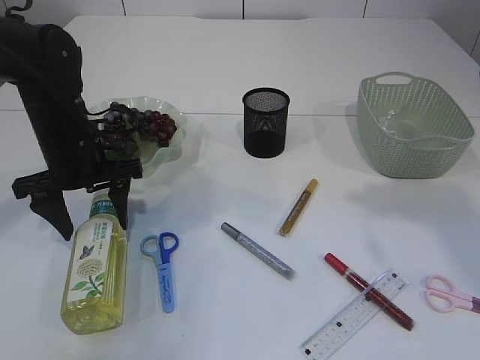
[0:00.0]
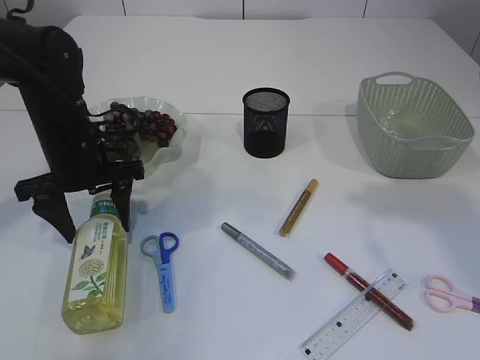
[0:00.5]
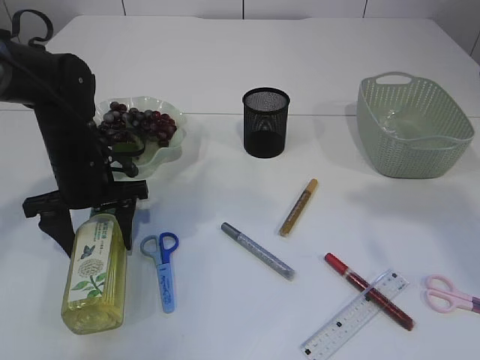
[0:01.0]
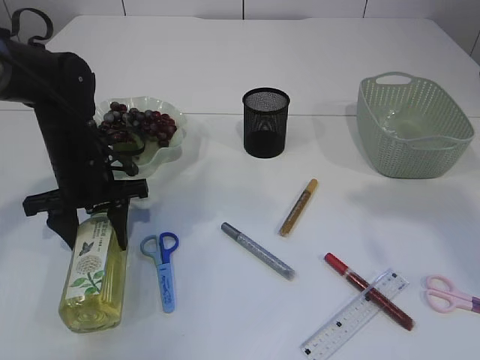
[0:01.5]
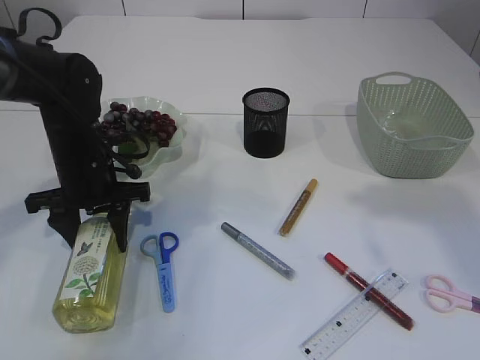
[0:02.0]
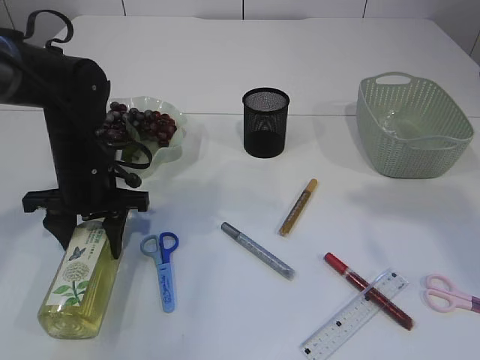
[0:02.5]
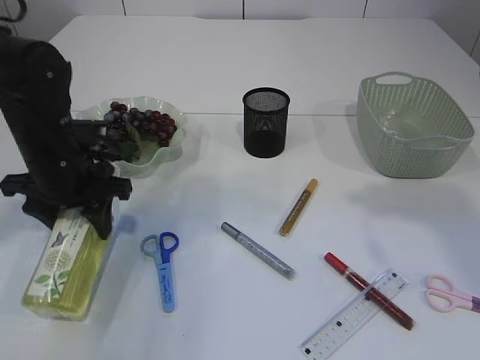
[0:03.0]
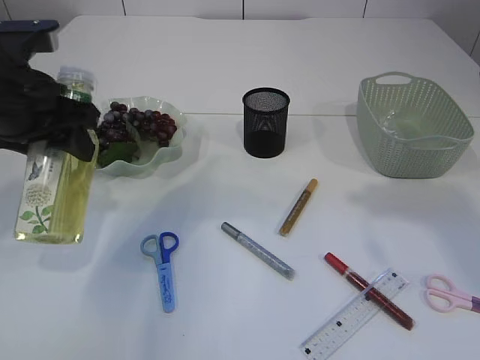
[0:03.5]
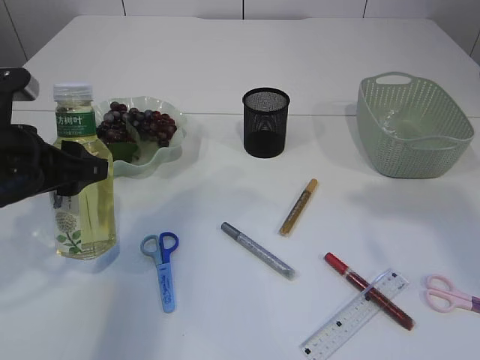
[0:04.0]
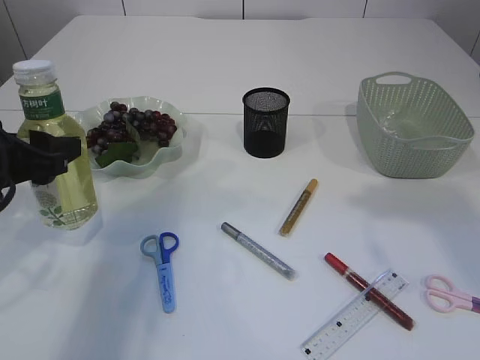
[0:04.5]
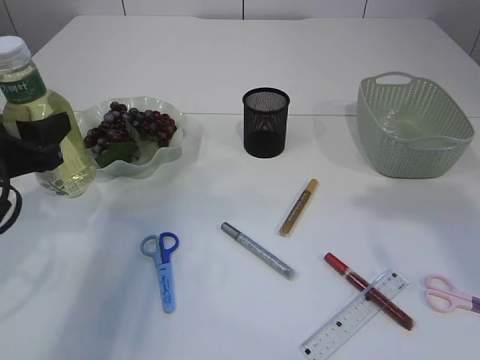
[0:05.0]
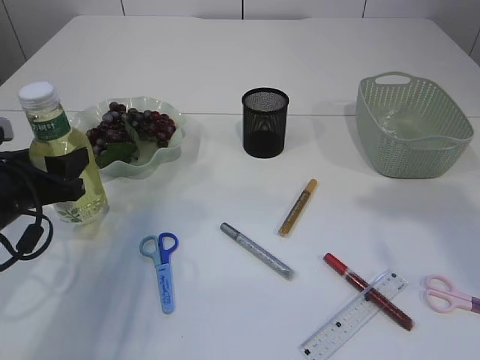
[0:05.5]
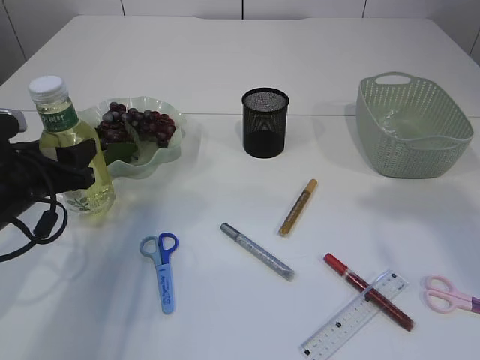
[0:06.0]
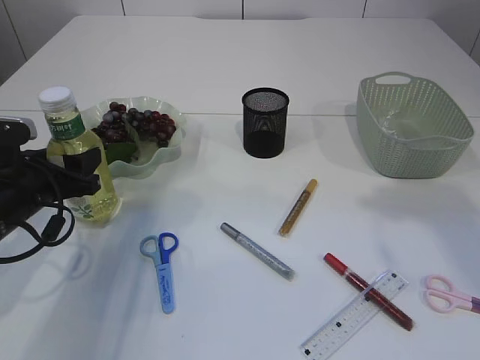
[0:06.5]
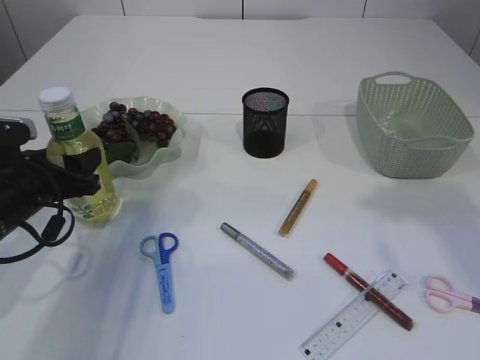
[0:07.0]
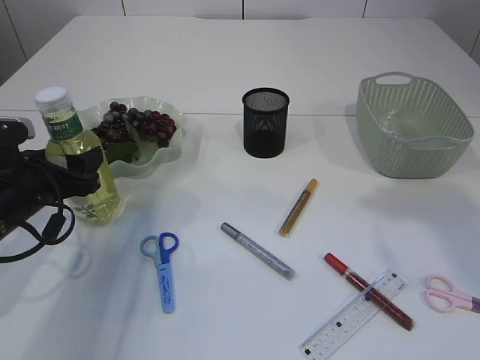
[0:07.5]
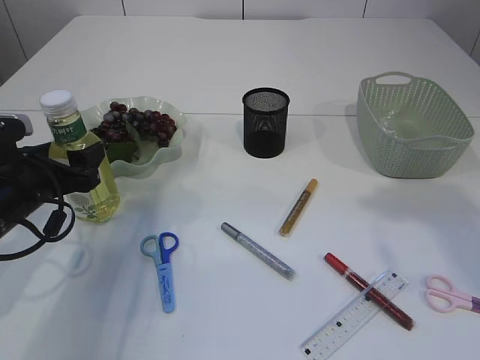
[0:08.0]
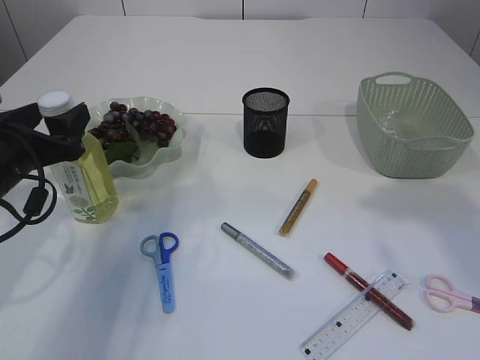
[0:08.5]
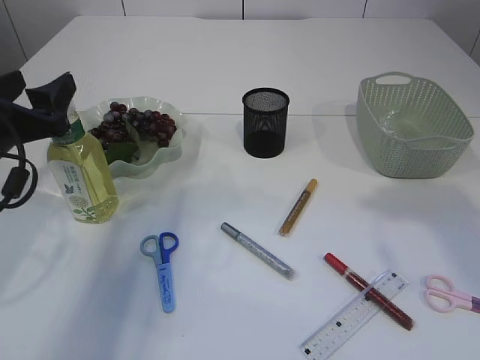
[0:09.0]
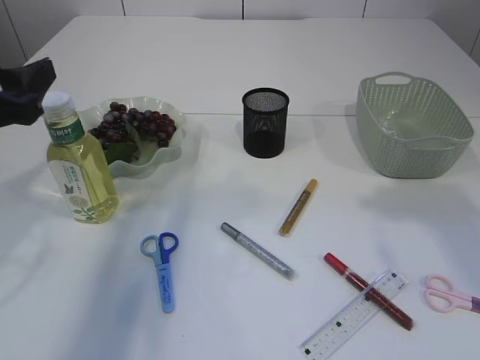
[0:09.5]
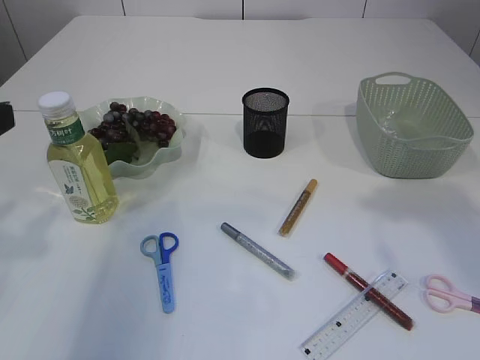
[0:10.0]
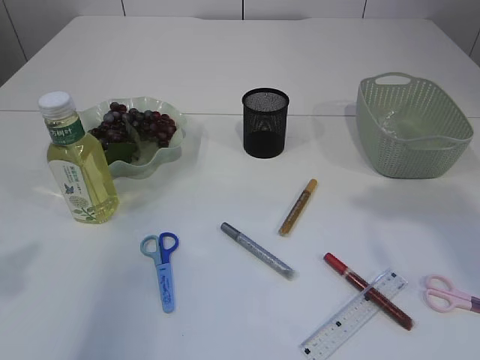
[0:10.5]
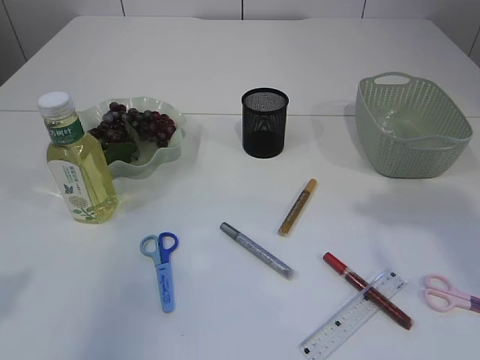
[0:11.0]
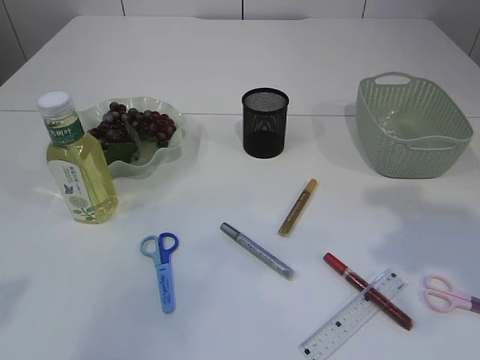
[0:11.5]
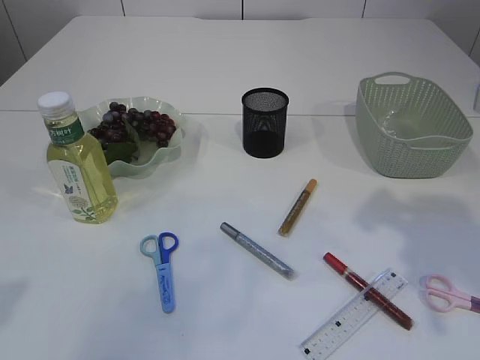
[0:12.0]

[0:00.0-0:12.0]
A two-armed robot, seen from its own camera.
Step, 0:00.0 to 0:03.0: Pick up the bottle with the left arm.
Step, 0:03.5 to 0:09.5: Place the bottle.
0:00.0 to 0:02.0: The grippers move only a little.
0:02.0 to 0:04.0: The left gripper travels backward and upward by roughly 15 cm.
0:04.0 to 0:06.0: The left gripper moves downward, about 10 cm.
0:06.0 to 0:08.0: The grippers move only a little.
0:08.0 to 0:10.0: The left gripper is displaced upward and backward by roughly 20 cm.
0:10.0 to 0:12.0: The right gripper moves downward, some 10 cm.

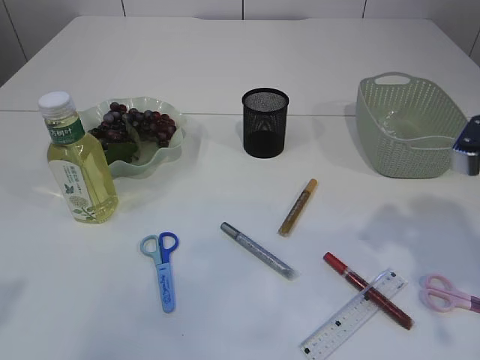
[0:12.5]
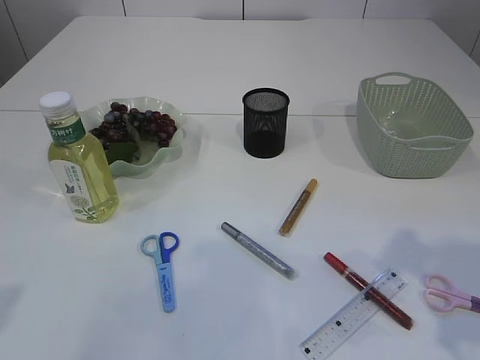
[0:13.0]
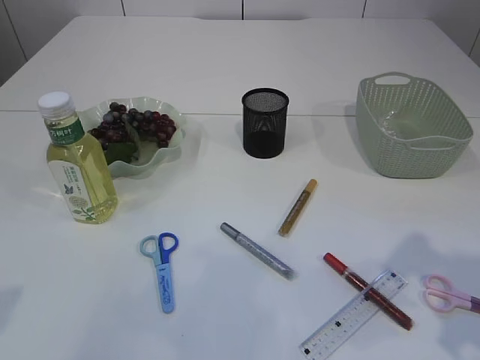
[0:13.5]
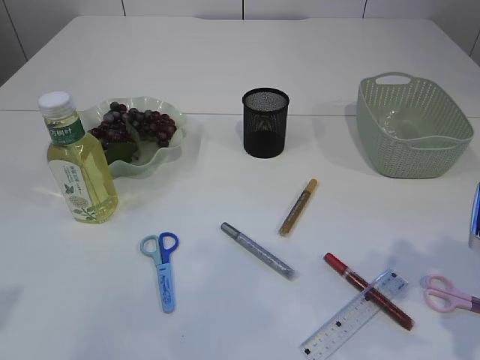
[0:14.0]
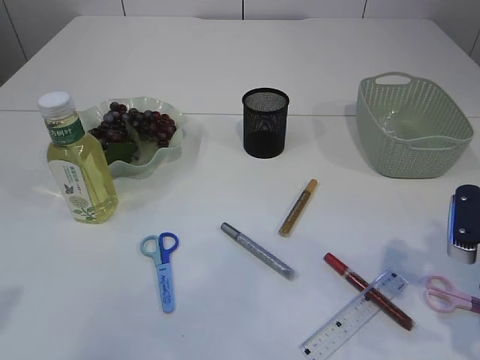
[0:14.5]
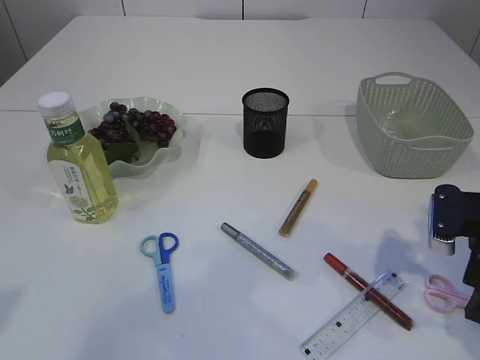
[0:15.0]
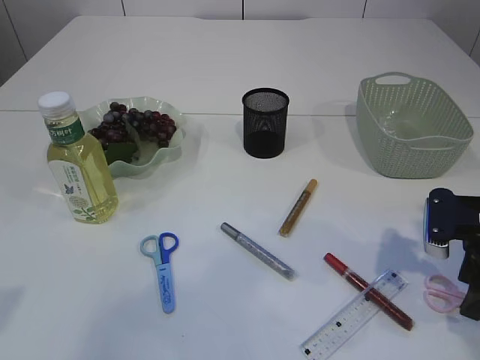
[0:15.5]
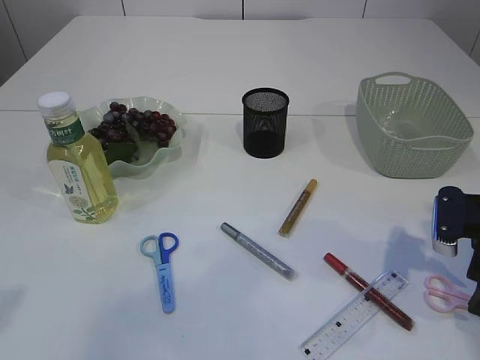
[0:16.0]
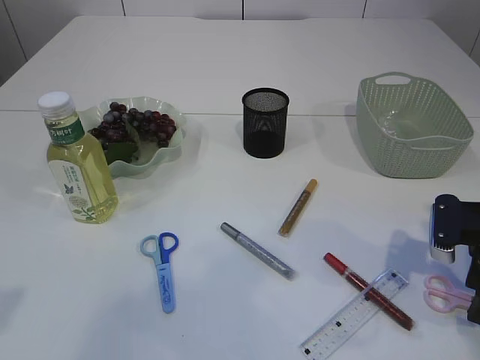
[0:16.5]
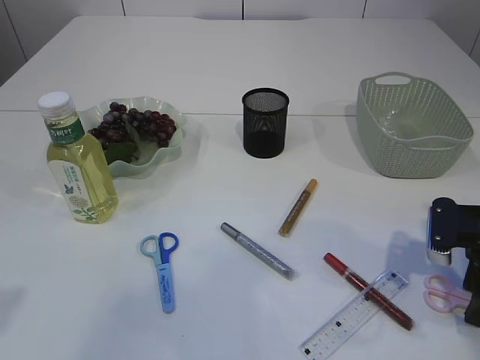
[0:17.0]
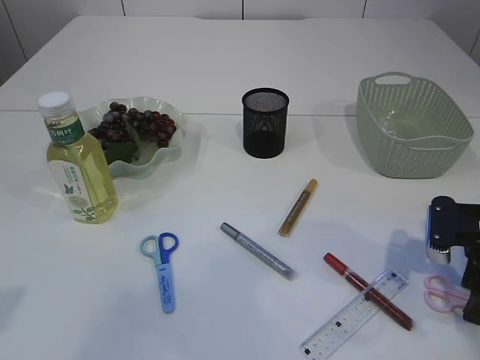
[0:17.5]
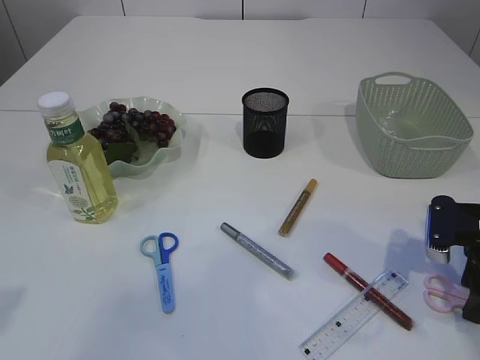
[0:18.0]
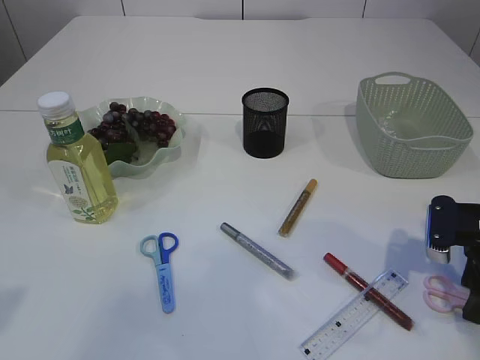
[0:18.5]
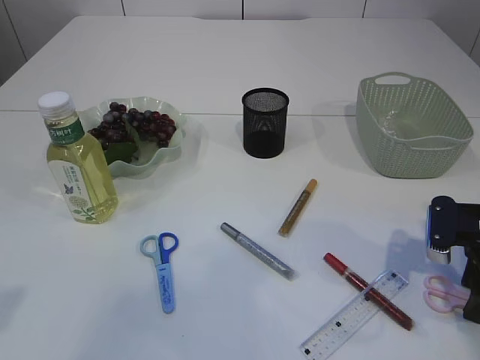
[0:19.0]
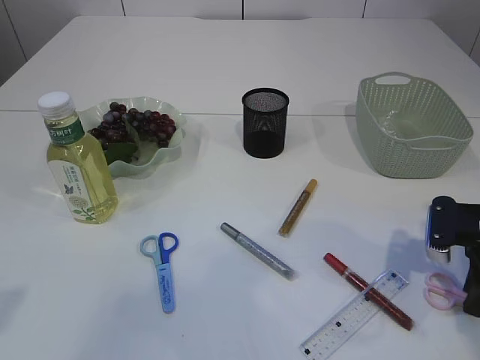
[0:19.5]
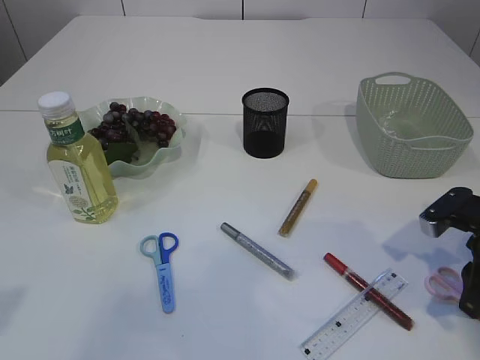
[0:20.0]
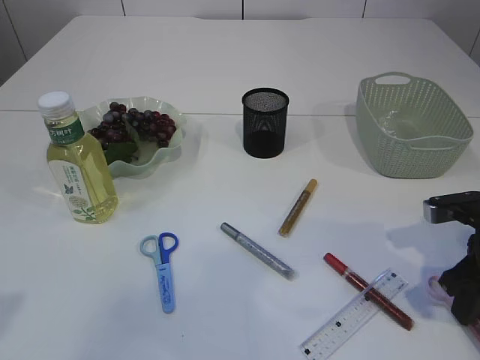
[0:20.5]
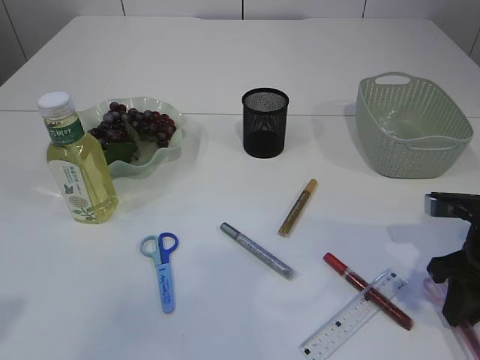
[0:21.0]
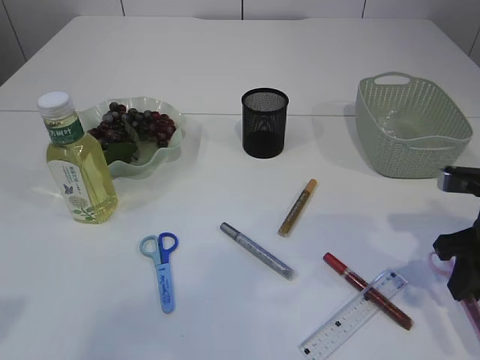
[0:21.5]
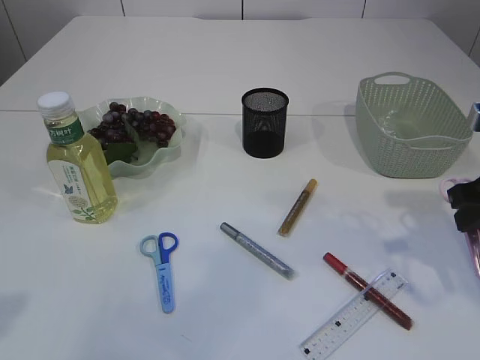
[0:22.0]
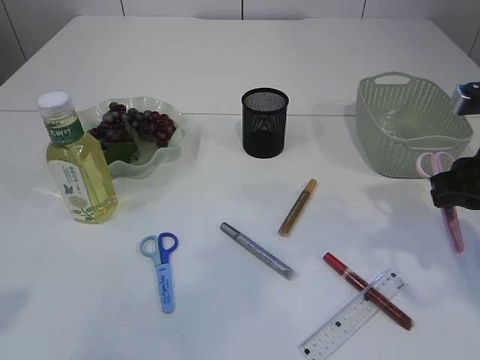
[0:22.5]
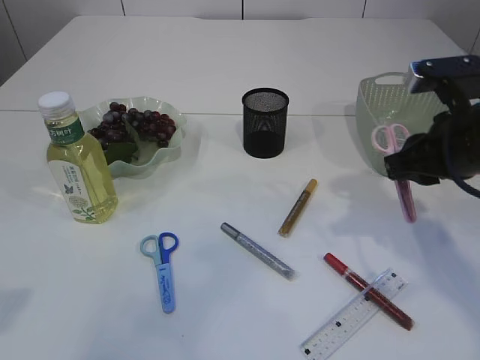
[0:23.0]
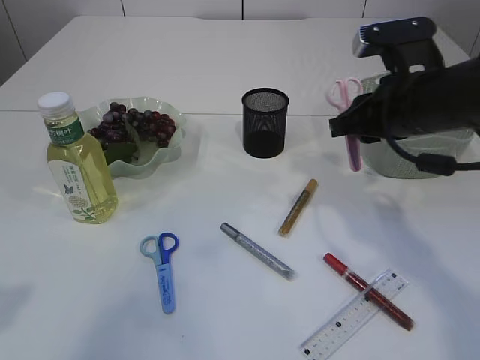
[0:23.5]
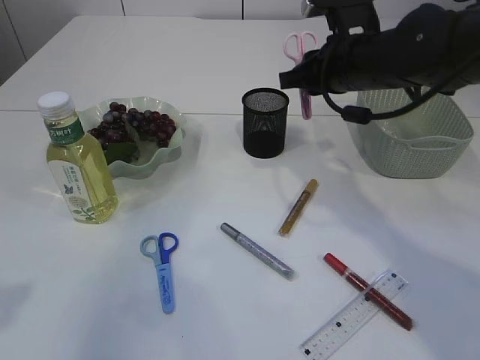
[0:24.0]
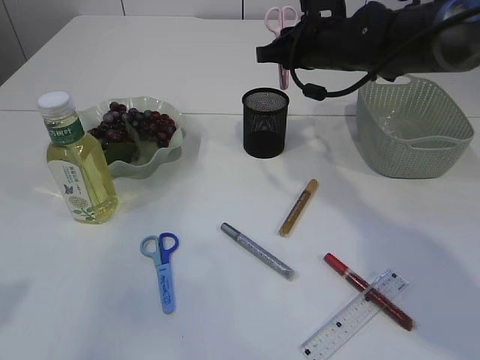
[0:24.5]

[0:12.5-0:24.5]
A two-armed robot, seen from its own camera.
Step, 0:12.5 to 0:21.5: pick up the pink scissors.
0:12.5 to 0:14.5: The right gripper is displaced downward by approximately 5 cm.
0:14.5 to 0:16.5: The right gripper ends up roughly 5 cm from where it was.
0:16.5 to 0:18.5: Neither gripper changes place.
0:18.5 to 0:20.5: The right gripper closes.
0:20.5 to 0:22.5: The right gripper heads upward, covering about 10 cm.
0:22.5 to 0:24.5: The right gripper shifts some 25 cm forward and to the left.

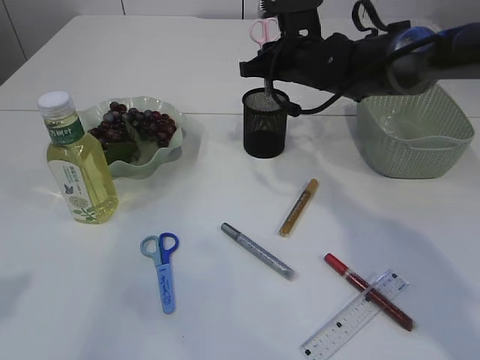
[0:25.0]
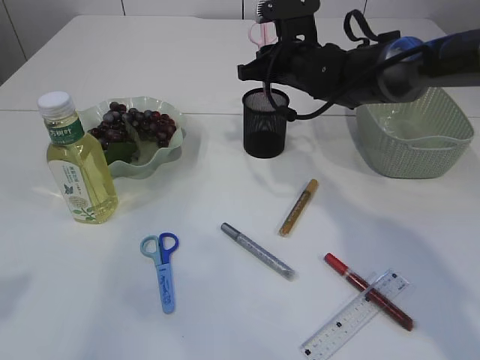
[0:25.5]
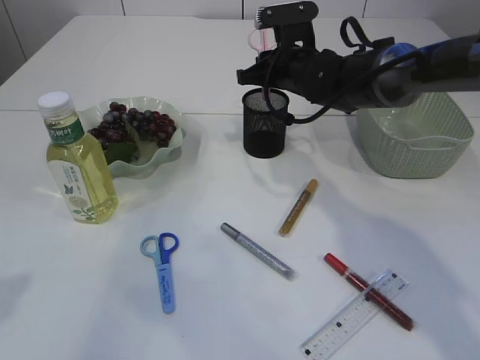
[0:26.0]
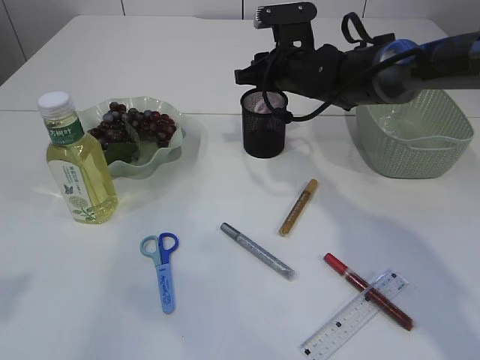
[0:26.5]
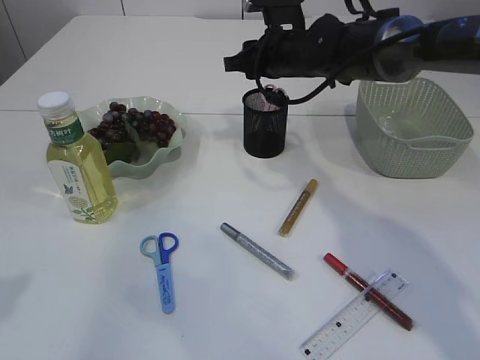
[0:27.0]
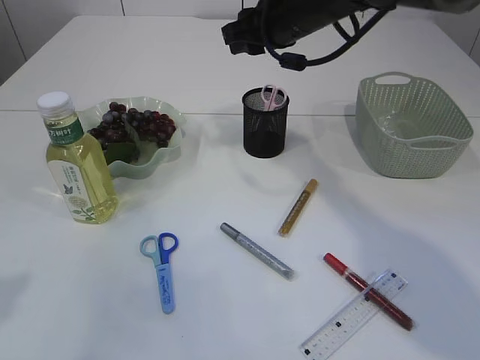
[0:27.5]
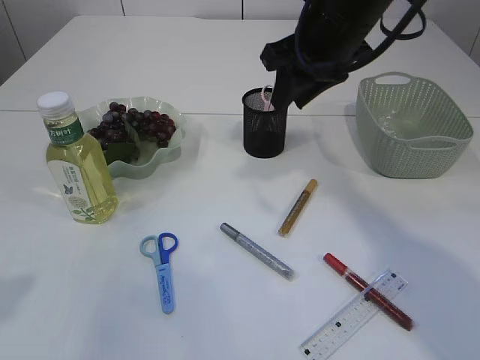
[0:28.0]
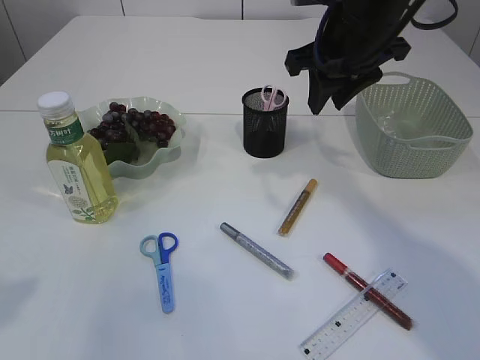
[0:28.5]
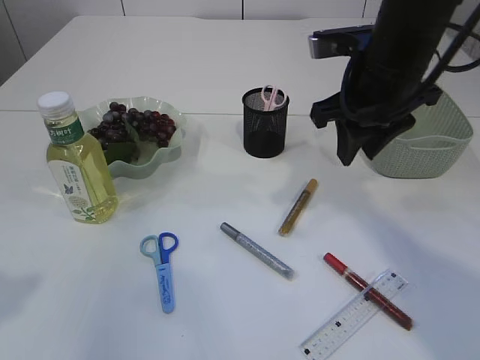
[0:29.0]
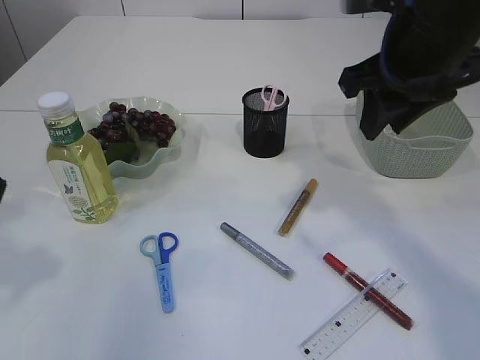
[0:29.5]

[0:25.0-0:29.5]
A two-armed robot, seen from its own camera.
0:25.0 to 0:27.0: The grippers move only a little.
0:27.0 to 0:29.5: The right gripper moves backward, upward and to the right, roughly 20 cm; the left gripper shifts some 5 cm forward.
